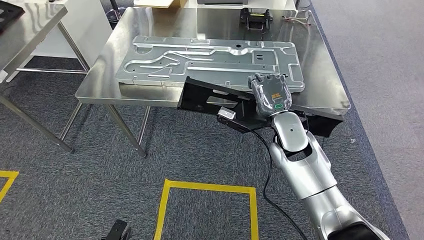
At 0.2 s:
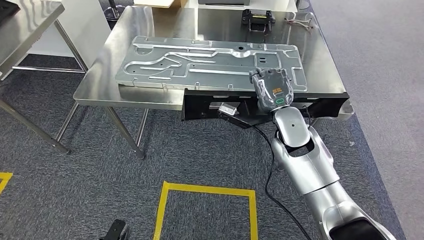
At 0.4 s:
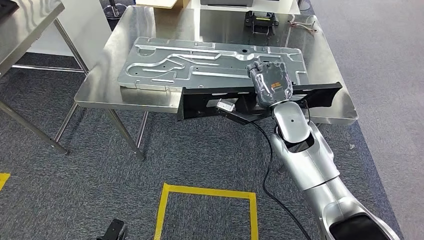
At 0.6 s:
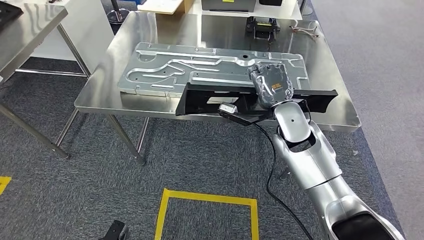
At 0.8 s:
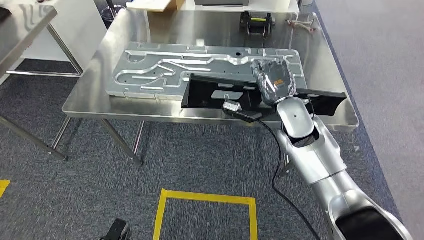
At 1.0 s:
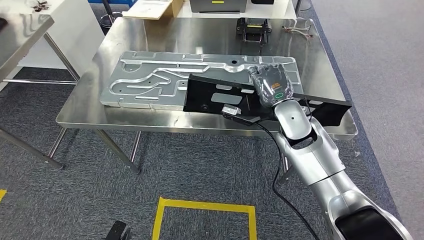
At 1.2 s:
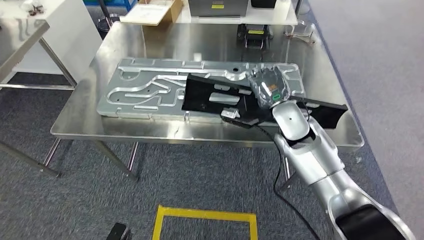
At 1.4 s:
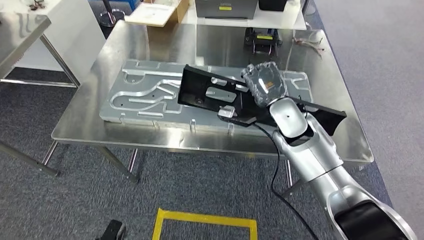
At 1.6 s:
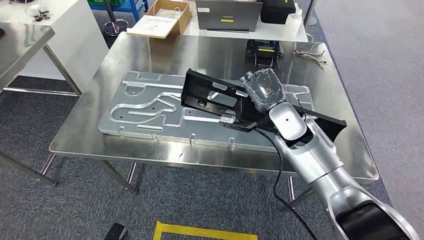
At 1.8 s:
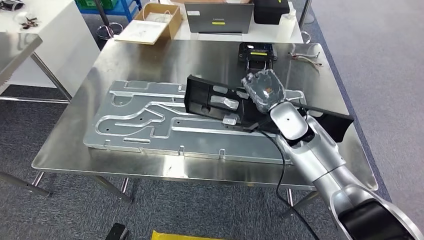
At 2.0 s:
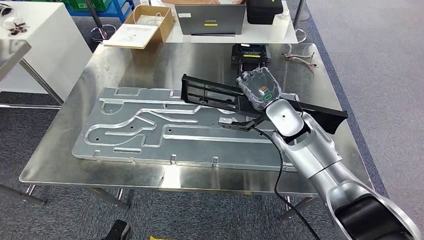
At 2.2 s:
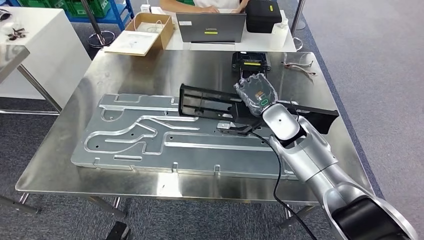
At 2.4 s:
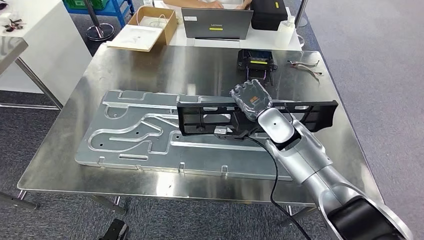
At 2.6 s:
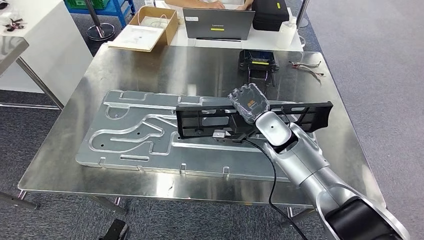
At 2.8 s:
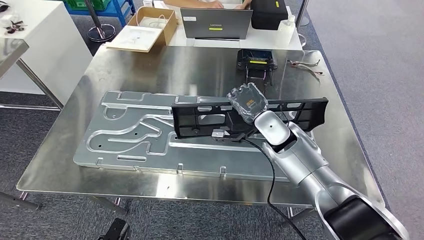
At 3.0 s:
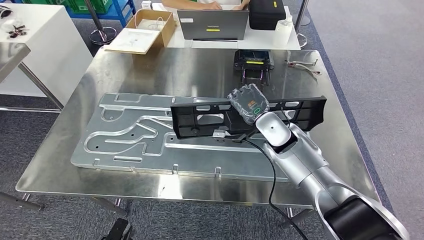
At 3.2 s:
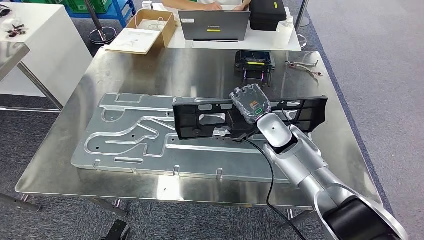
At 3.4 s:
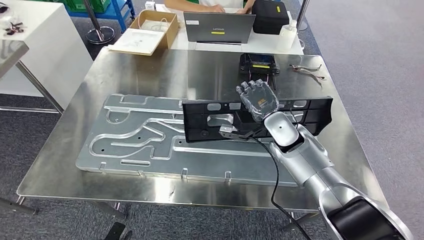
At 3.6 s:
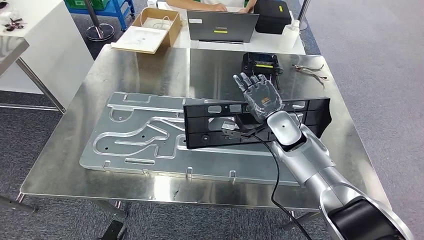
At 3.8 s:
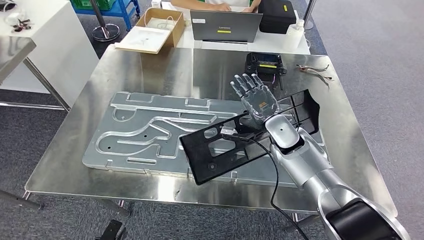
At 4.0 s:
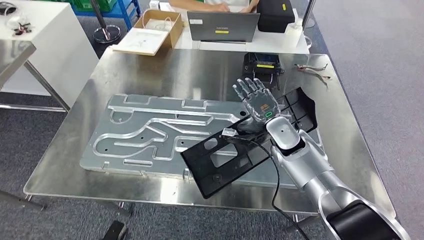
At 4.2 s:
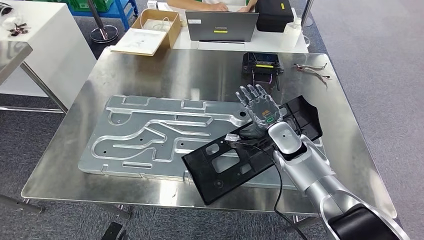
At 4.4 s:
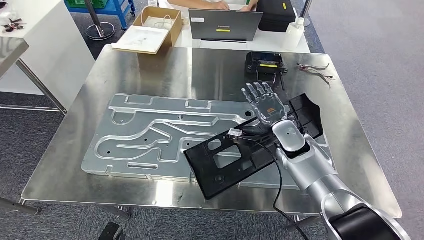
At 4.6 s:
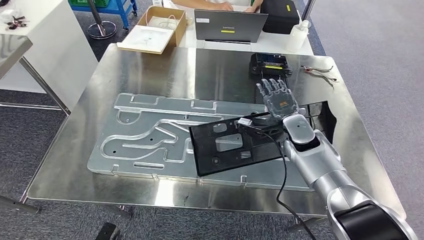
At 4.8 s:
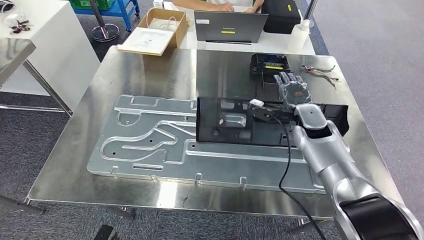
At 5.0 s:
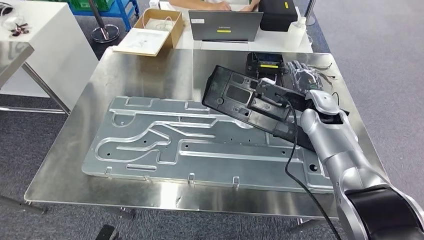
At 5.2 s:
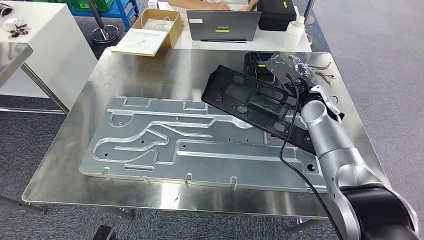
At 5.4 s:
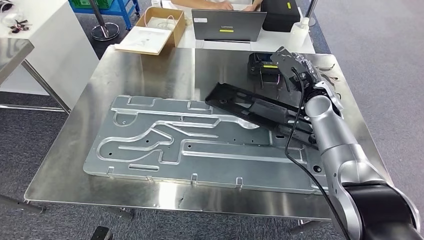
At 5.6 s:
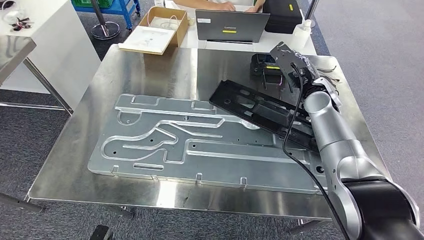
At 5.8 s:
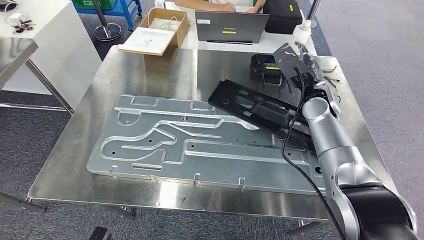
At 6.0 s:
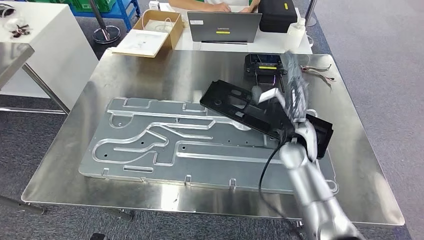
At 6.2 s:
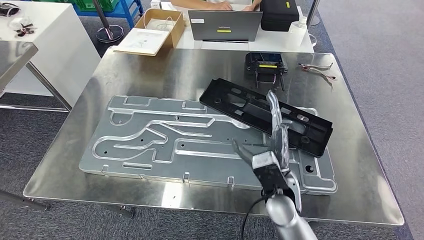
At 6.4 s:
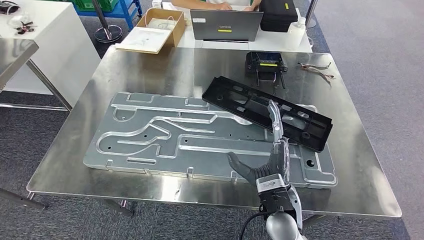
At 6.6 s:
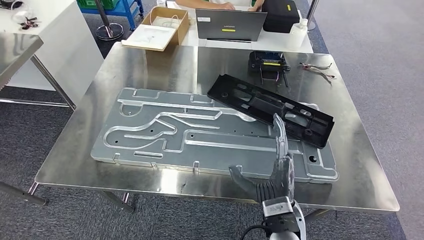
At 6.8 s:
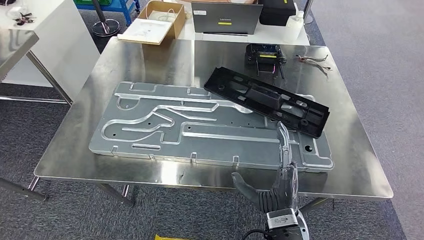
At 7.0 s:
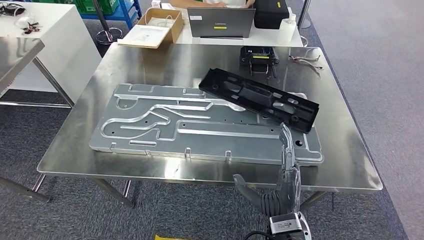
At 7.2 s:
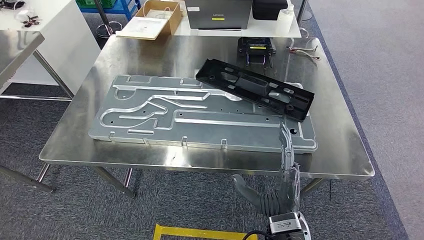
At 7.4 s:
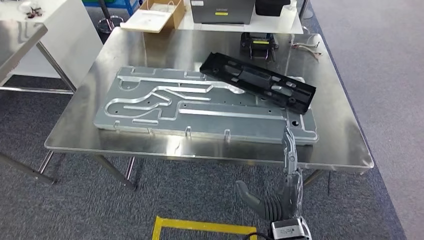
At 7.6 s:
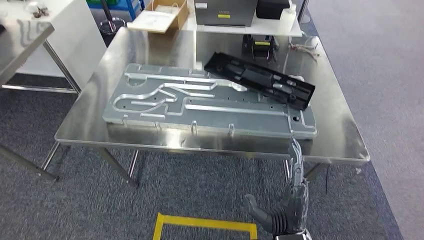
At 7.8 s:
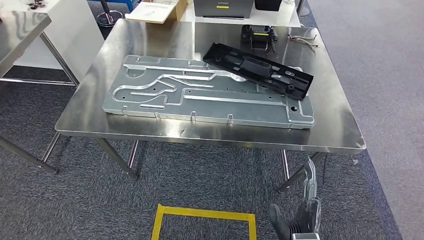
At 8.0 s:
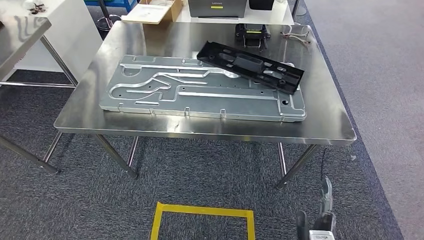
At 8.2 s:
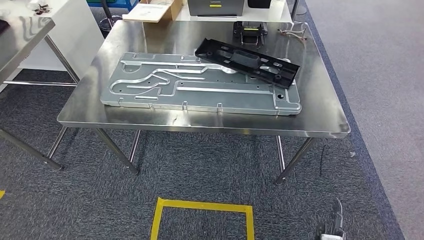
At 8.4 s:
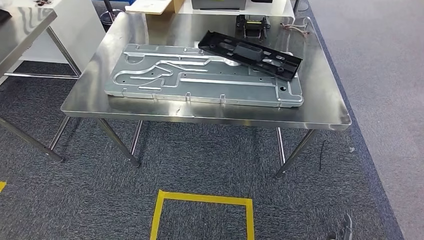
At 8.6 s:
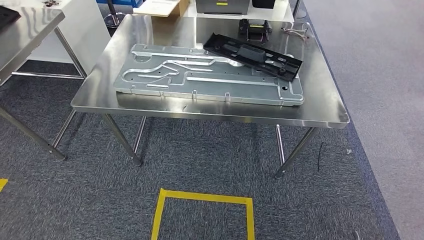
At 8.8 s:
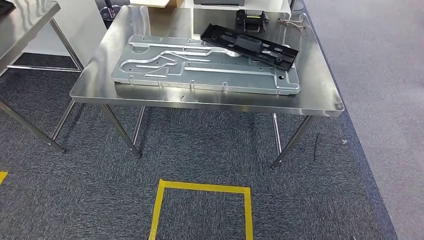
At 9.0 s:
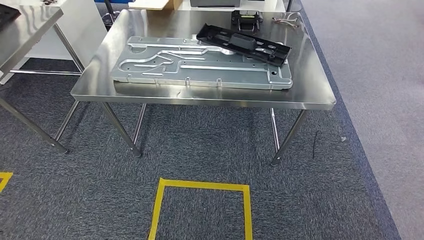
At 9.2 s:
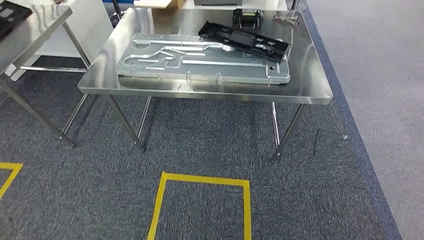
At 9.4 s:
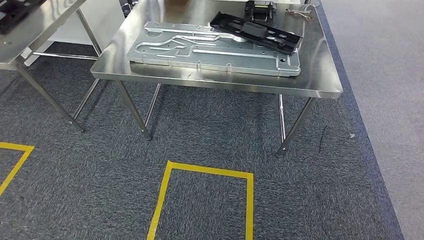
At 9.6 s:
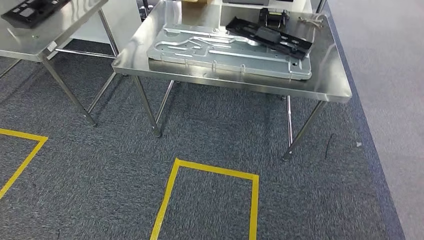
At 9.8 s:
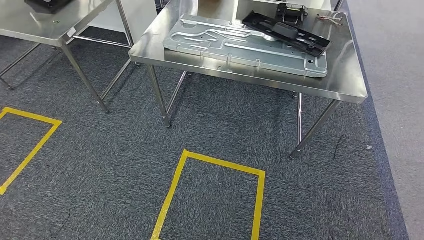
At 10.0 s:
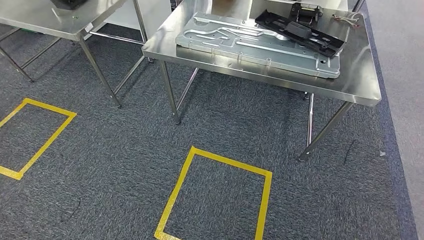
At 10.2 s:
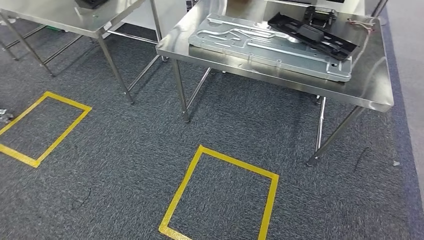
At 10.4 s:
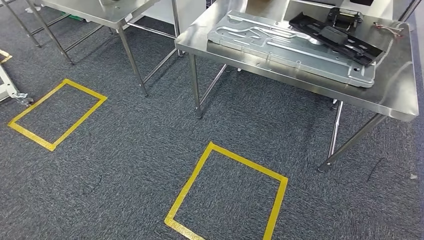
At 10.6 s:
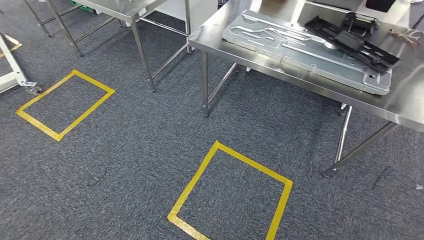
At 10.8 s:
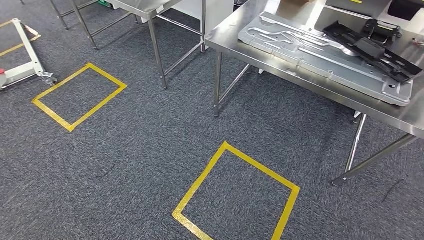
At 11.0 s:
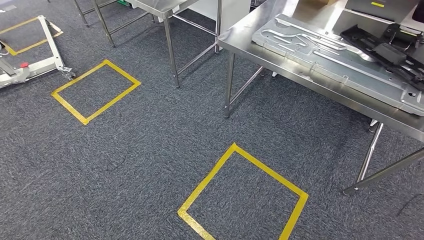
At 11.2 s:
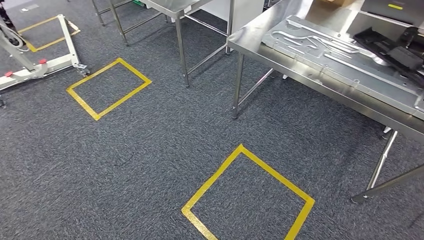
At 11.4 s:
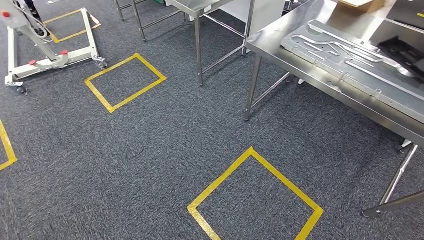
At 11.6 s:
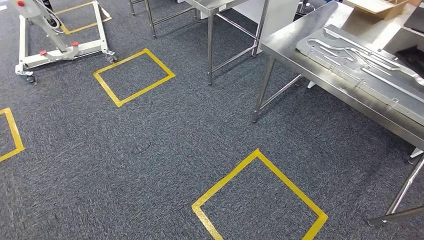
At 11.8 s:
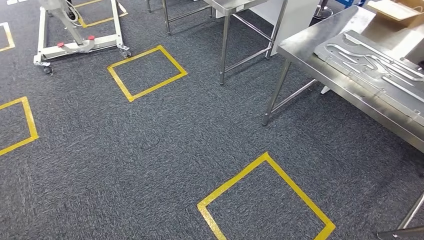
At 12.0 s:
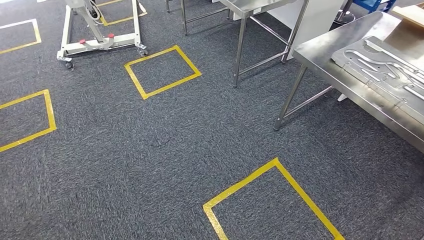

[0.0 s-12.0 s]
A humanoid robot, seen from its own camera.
Step, 0.4 to 9.2 s: Insert the large material into the corresponding slot on the workbench.

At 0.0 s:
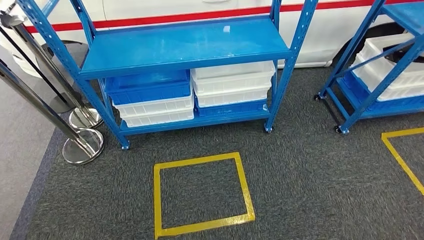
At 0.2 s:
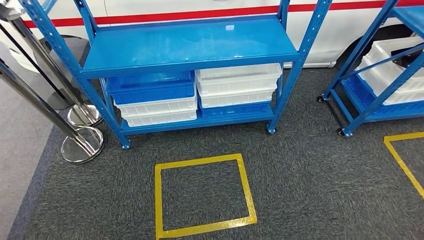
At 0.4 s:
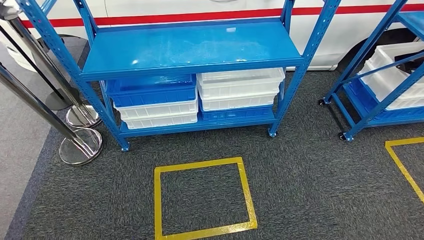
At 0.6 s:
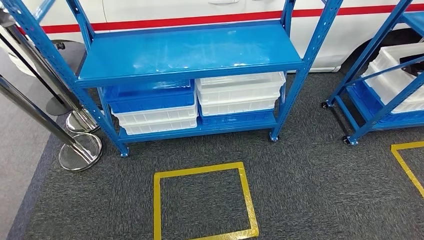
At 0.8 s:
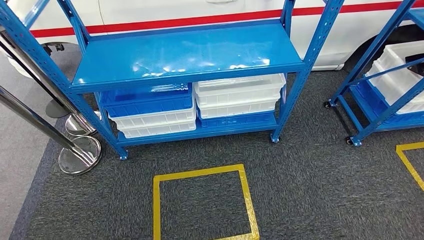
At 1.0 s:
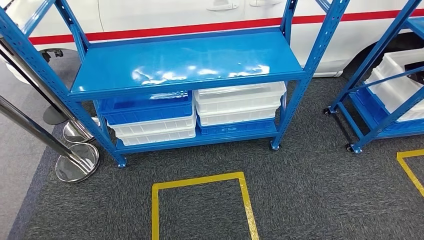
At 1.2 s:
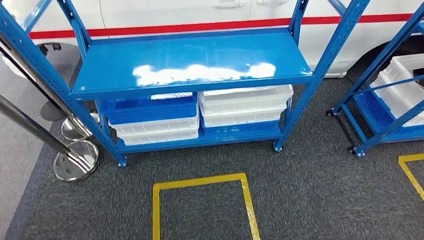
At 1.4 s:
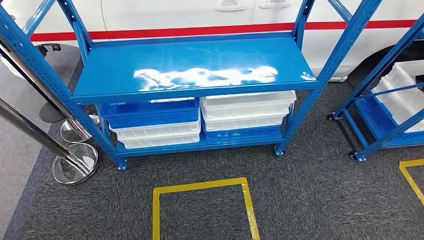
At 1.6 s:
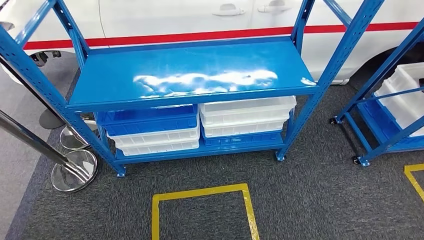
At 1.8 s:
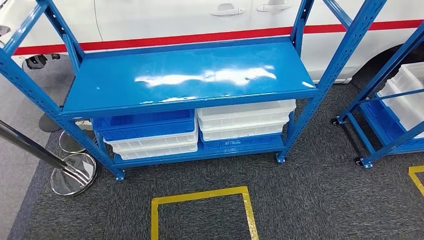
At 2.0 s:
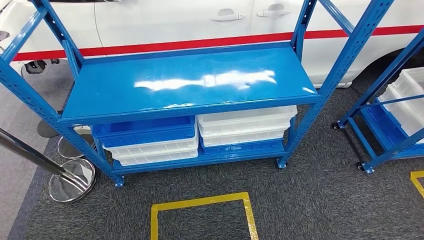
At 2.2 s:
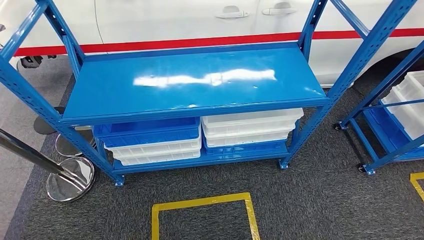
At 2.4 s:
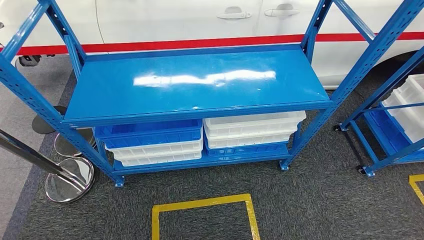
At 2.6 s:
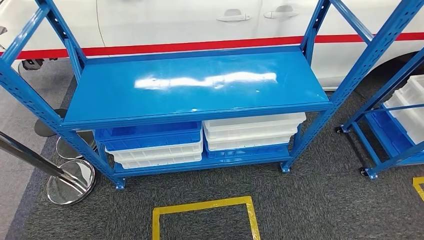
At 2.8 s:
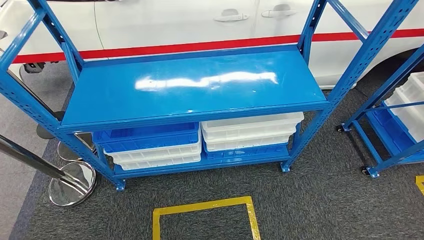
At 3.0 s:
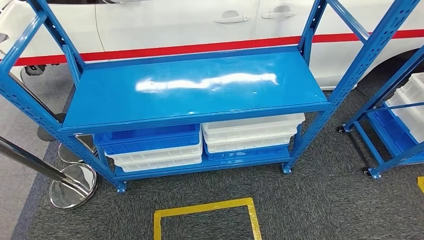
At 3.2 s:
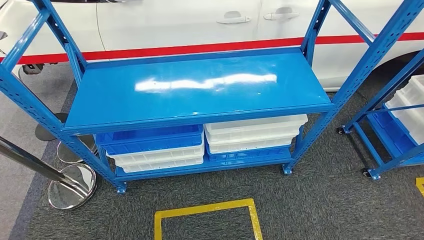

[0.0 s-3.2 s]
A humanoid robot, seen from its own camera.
Step, 0.0 to 3.2 s: Move to the initial position of the shelf.
